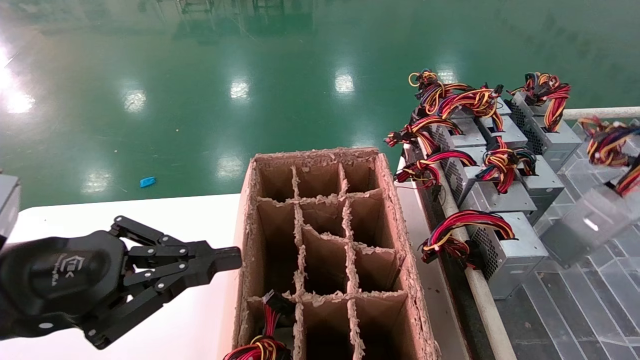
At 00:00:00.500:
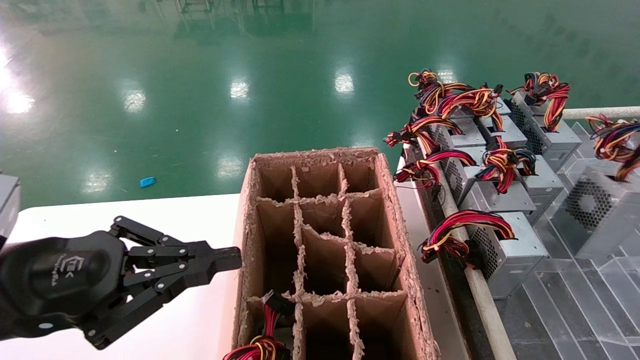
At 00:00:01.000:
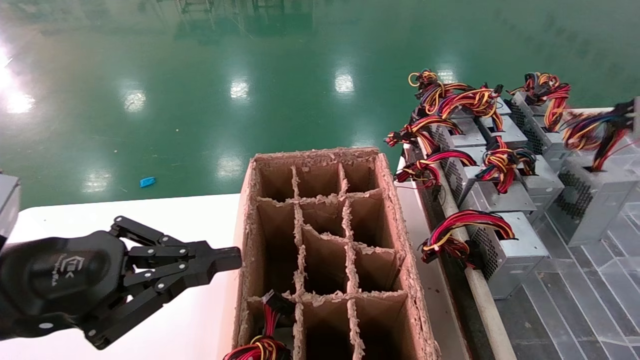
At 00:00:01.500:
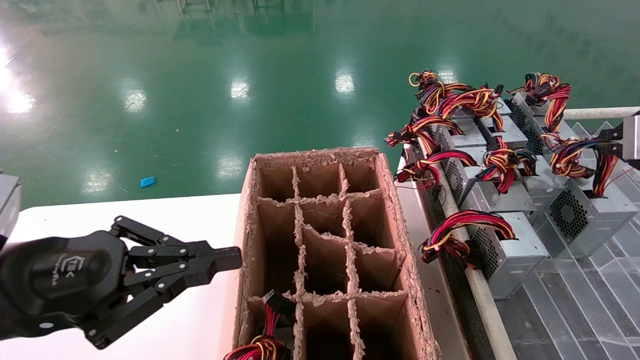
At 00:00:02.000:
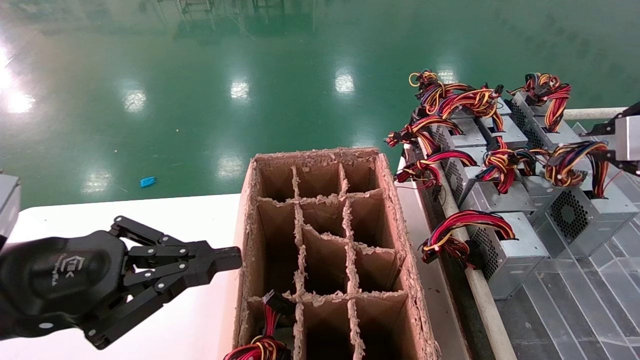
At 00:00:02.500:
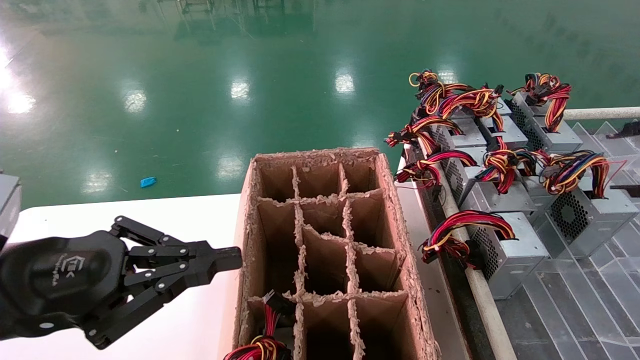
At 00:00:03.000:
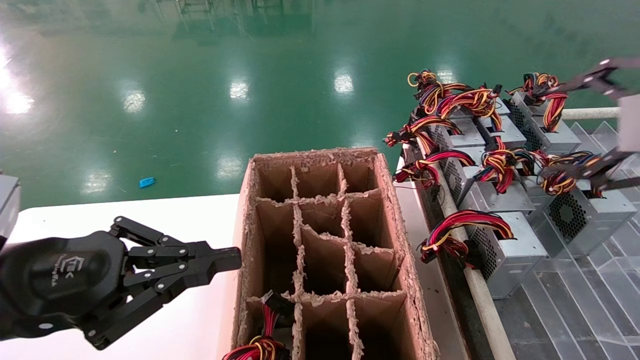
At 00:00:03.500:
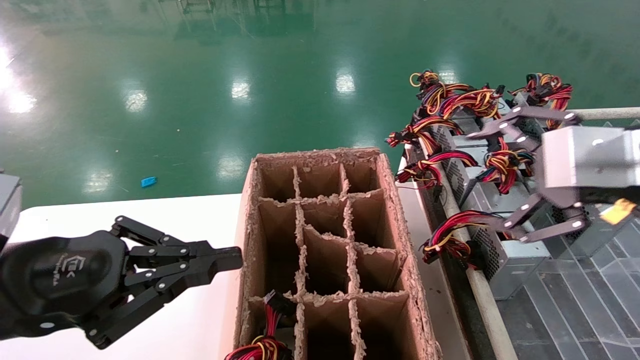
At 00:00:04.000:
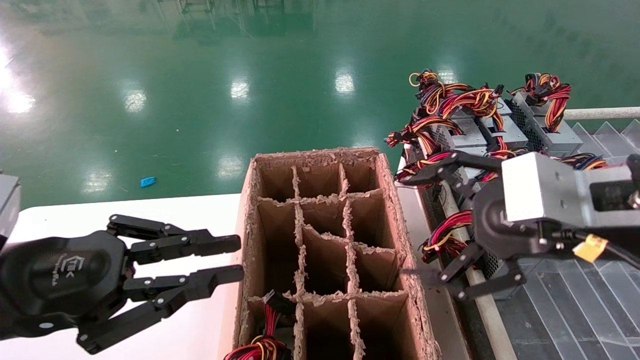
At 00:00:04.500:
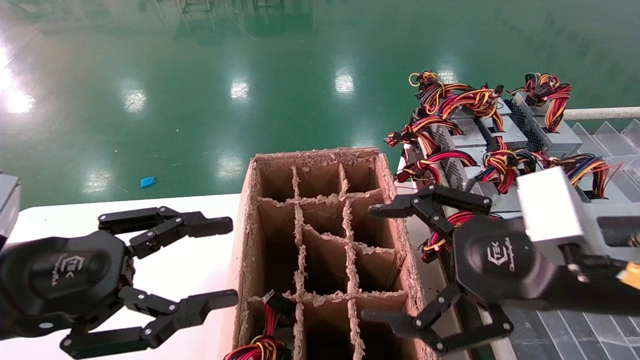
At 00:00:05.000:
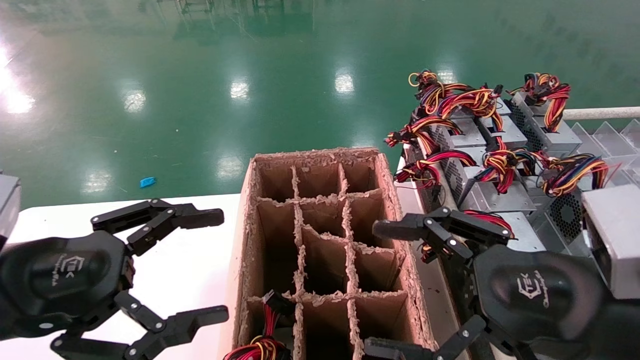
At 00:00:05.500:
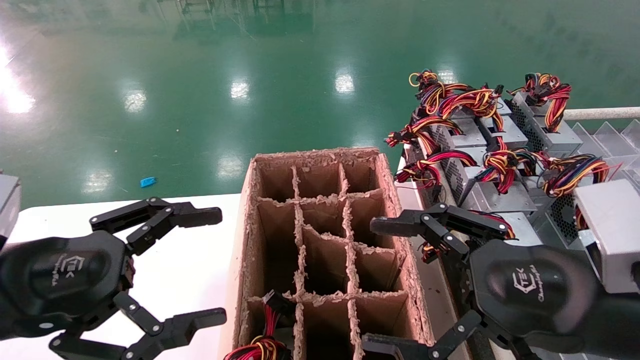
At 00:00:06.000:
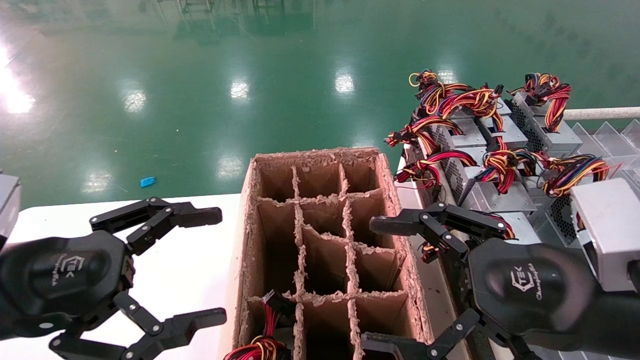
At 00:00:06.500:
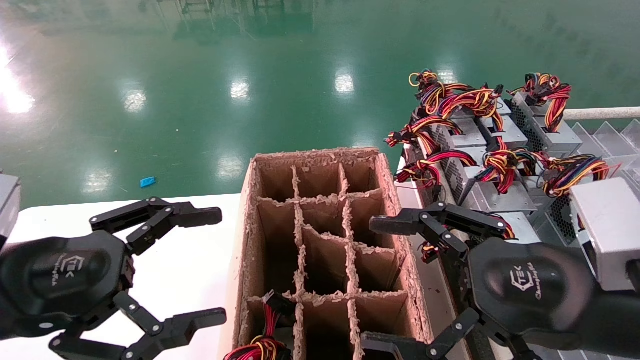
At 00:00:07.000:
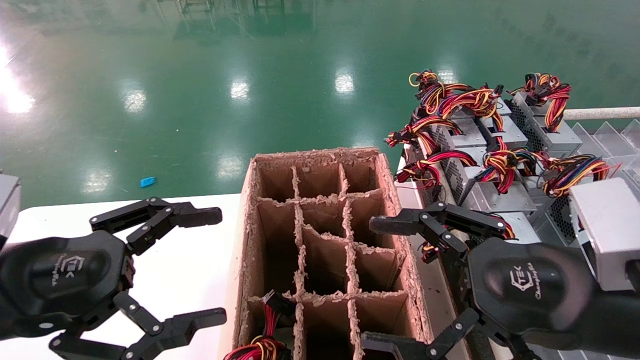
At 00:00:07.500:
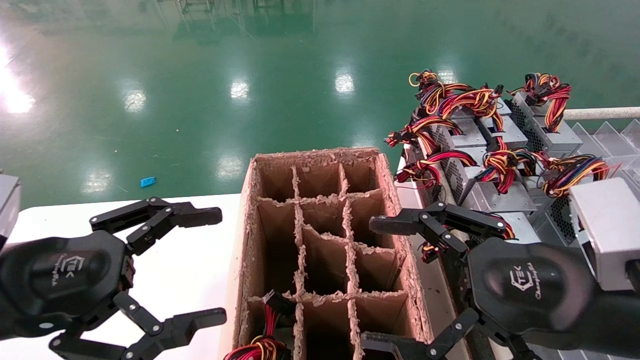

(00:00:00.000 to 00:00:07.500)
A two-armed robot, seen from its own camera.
Step, 00:00:00.000 - 00:00:02.000: Place the main unit power supply in the designated area.
00:00:00.000 - 00:00:02.000: The right gripper changes place by approximately 5 cm.
00:00:02.000 - 00:00:04.000: The right gripper heads to the left, covering roughly 15 cm, and opens up.
00:00:04.000 - 00:00:05.500: The right gripper shifts roughly 5 cm downward. The left gripper opens its fingers.
00:00:05.500 - 00:00:07.500: The two grippers keep their place.
